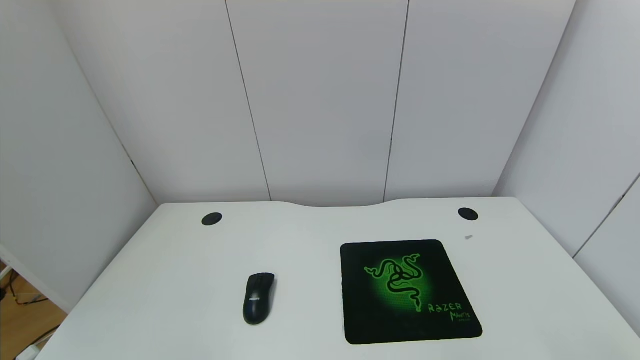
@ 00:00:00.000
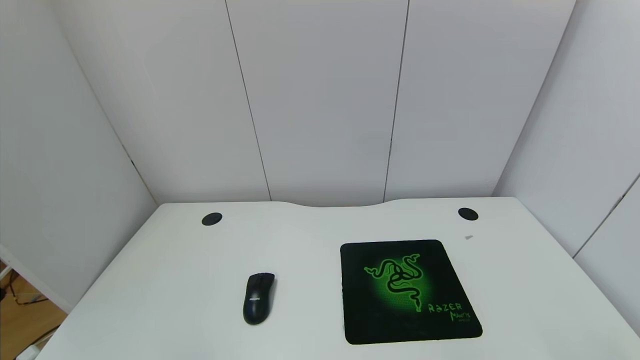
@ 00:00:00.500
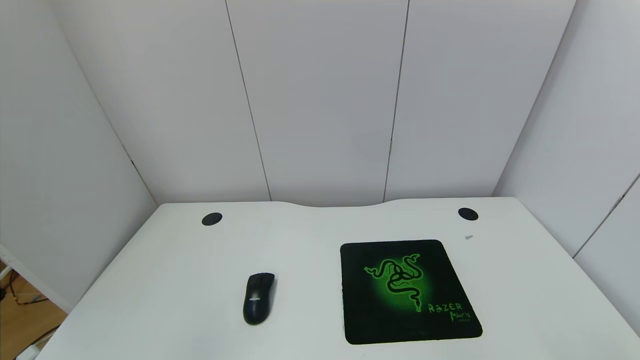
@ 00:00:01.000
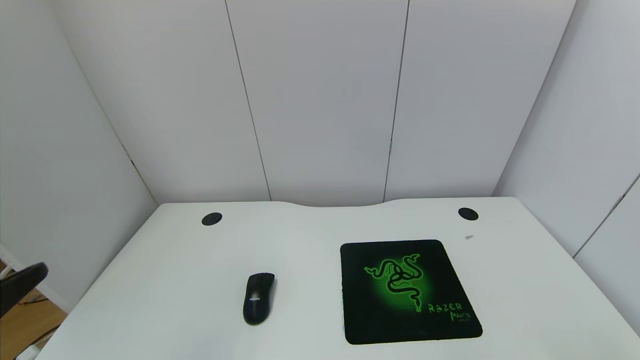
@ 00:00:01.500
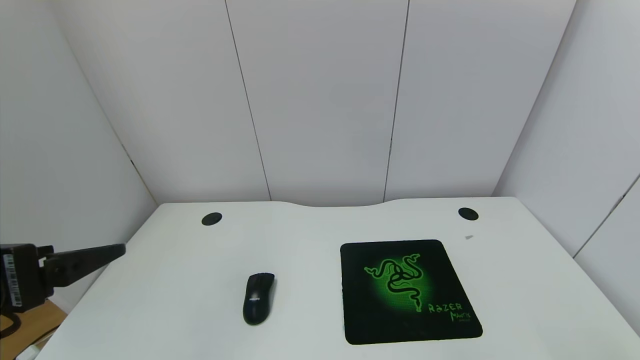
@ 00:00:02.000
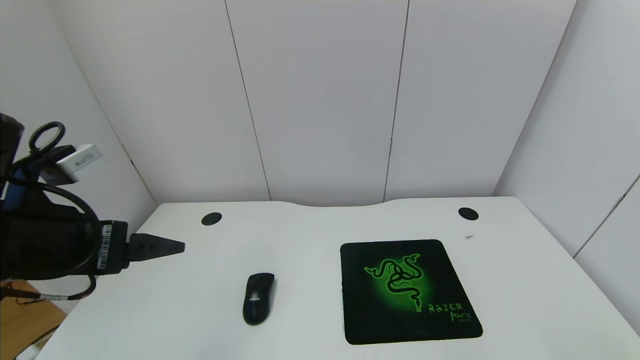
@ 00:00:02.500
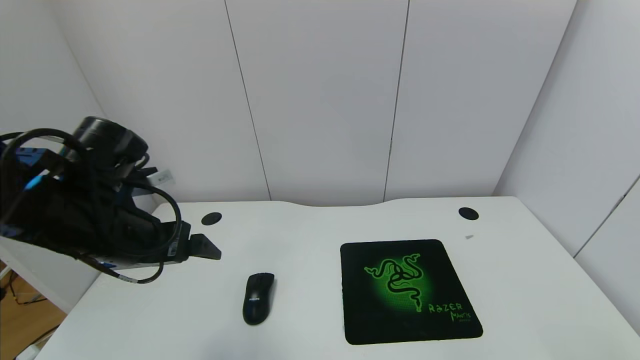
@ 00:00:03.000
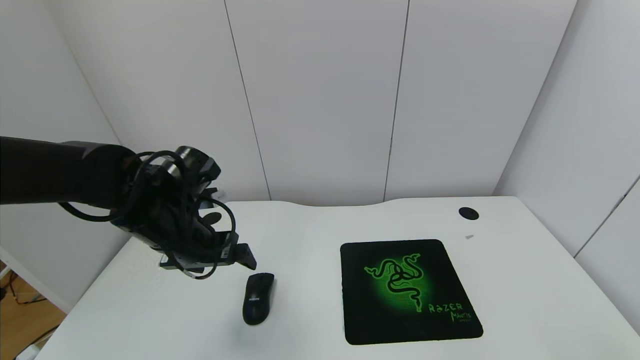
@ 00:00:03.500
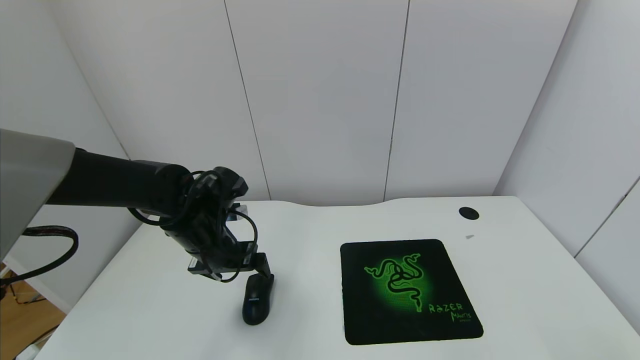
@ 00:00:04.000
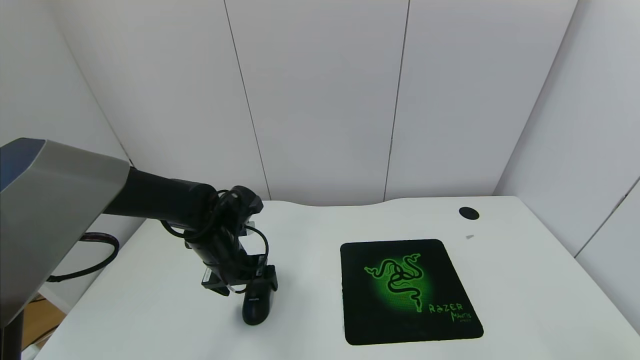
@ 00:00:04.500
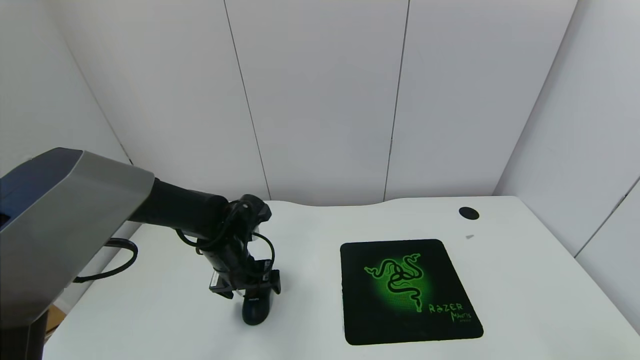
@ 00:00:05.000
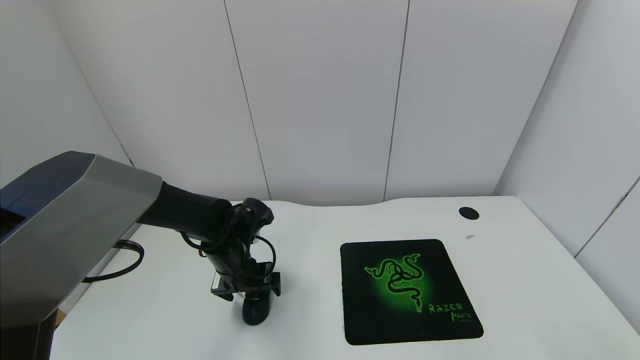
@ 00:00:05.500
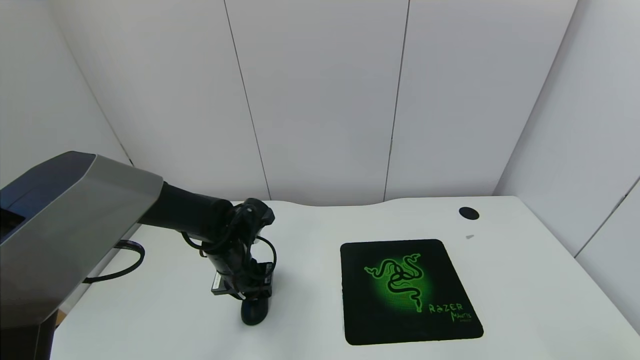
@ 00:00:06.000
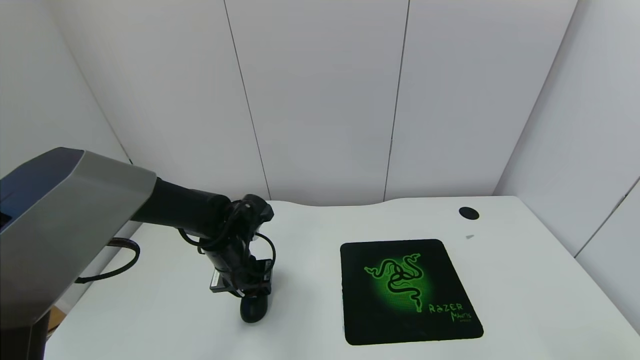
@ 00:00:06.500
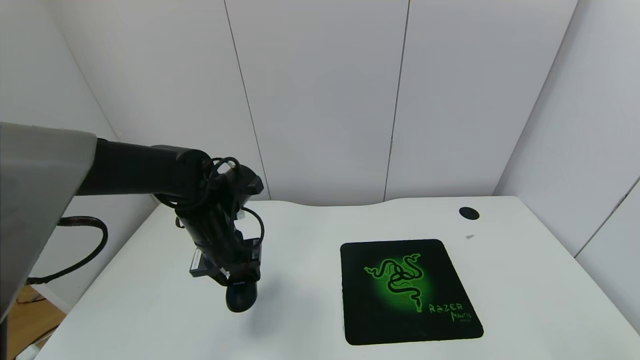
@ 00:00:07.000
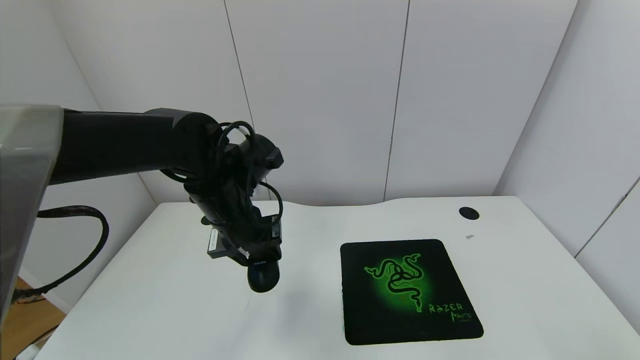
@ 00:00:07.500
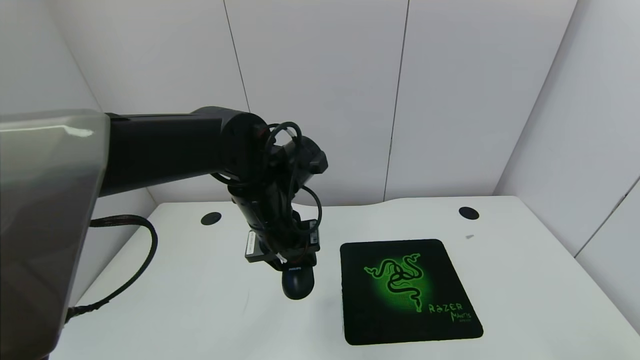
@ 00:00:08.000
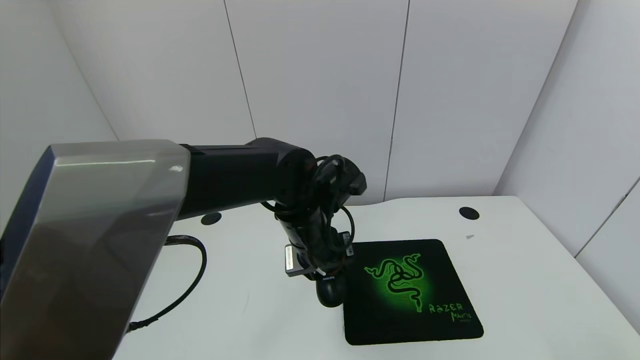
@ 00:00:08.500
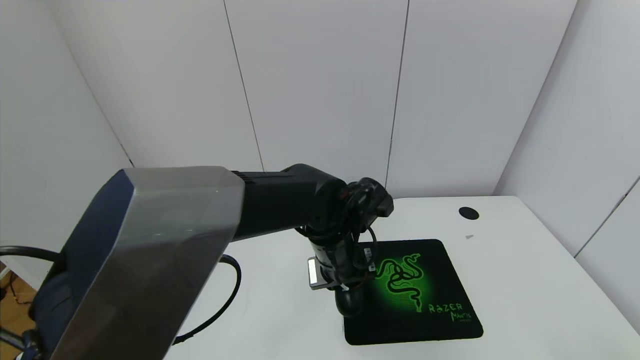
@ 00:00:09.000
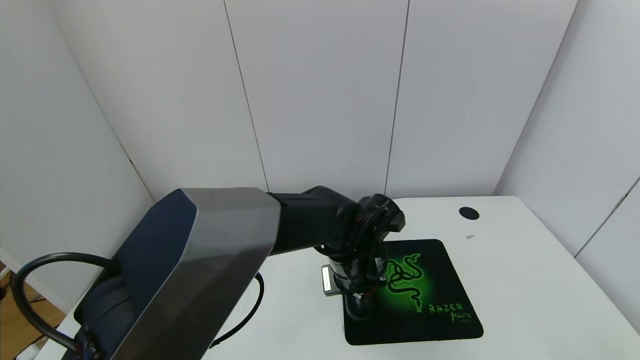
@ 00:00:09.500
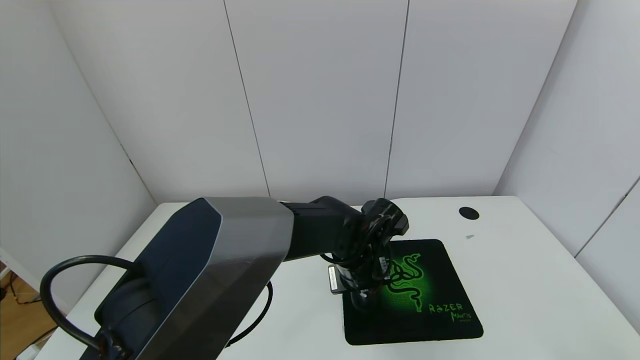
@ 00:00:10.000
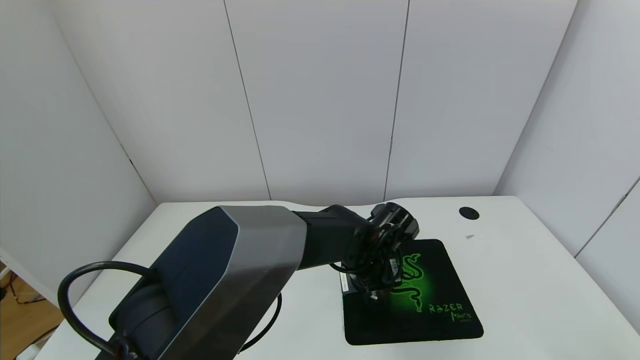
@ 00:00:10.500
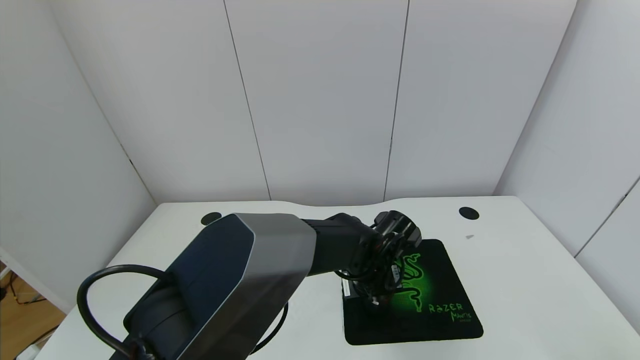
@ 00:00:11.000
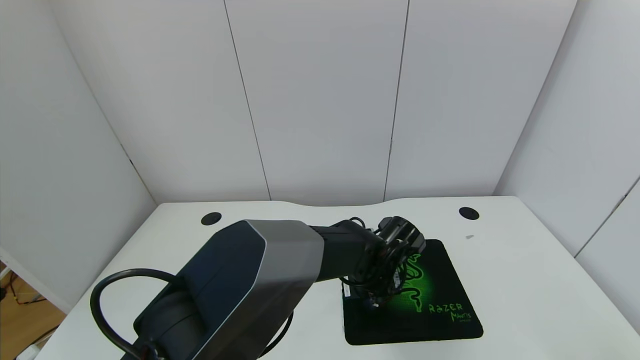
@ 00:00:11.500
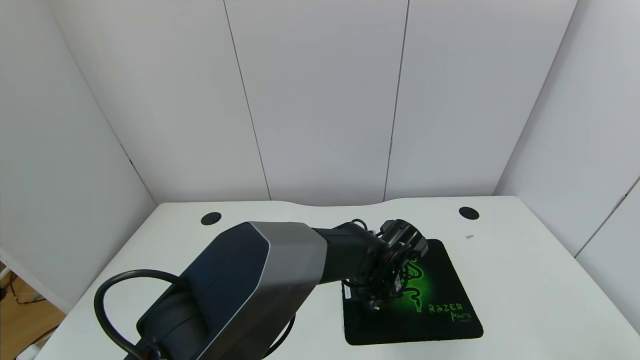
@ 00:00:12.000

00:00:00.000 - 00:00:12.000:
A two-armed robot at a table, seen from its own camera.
Task of the whole recording: use the gripper to move the mouse from one side of the table to the mouse pad on the opposite side.
Step, 00:00:00.000 - 00:00:06.000: Grasp the mouse with the left gripper.
00:00:00.000 - 00:00:02.000: The left gripper goes roughly 25 cm upward and forward.
00:00:02.000 - 00:00:04.000: The left gripper heads forward, downward and to the right, covering some 25 cm.
00:00:04.000 - 00:00:06.000: The left gripper goes approximately 5 cm downward, and closes up.
00:00:06.000 - 00:00:08.000: The left gripper heads upward and to the right, covering approximately 15 cm.
00:00:08.000 - 00:00:10.000: The left gripper moves to the right and downward, roughly 15 cm.
00:00:10.000 - 00:00:12.000: The grippers make only small movements.

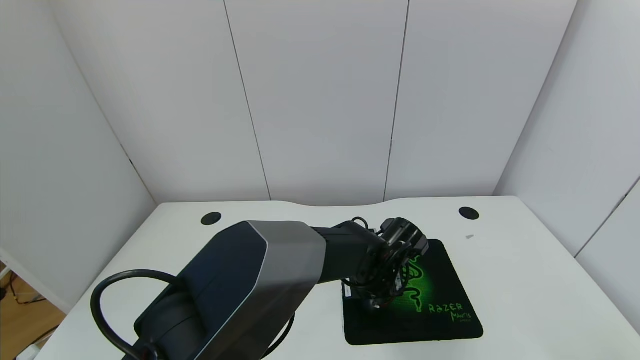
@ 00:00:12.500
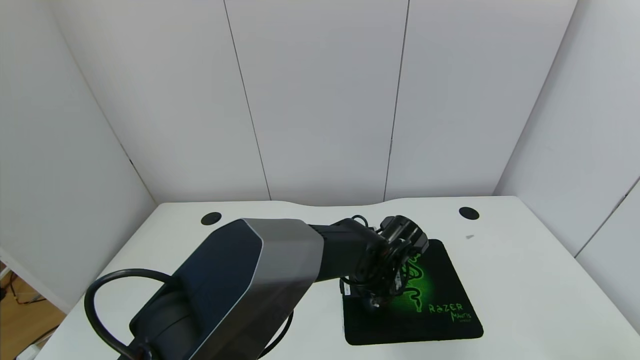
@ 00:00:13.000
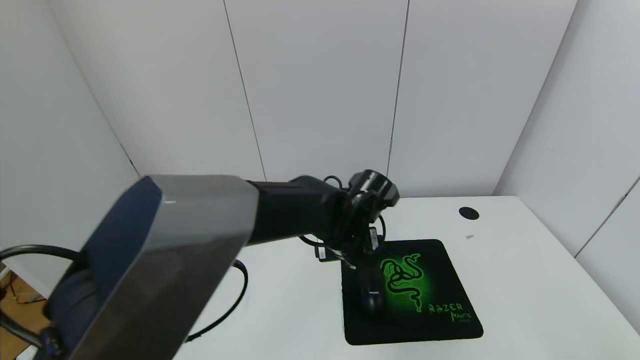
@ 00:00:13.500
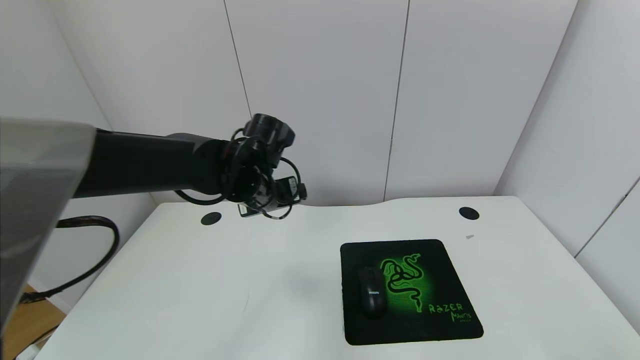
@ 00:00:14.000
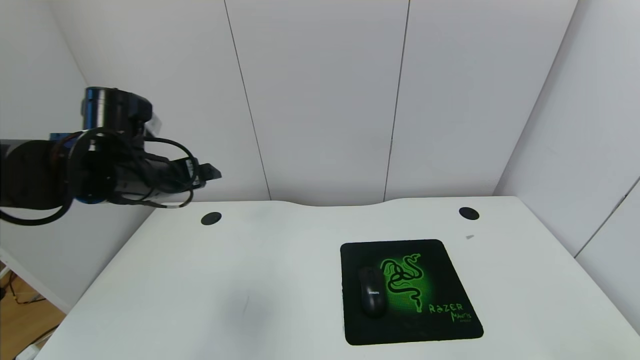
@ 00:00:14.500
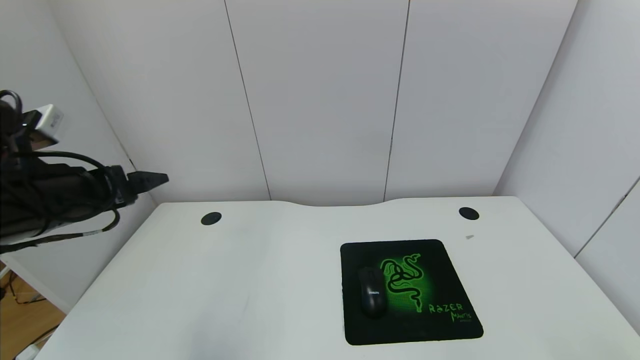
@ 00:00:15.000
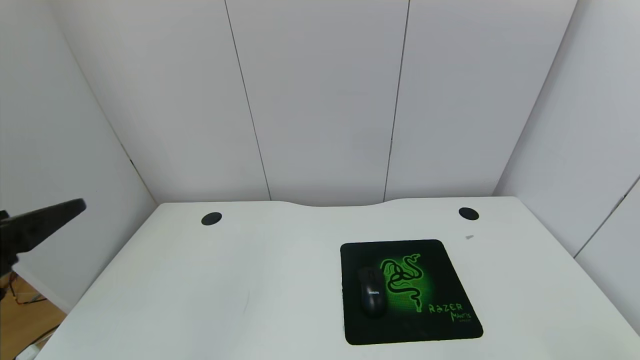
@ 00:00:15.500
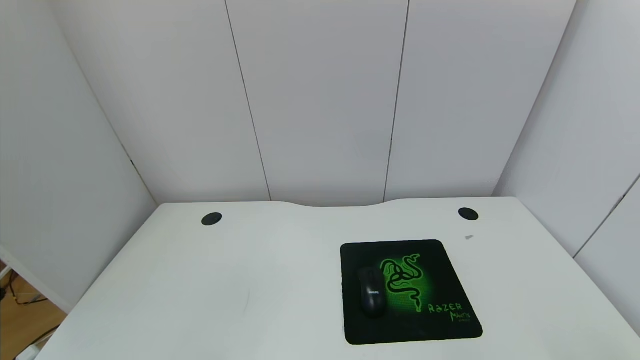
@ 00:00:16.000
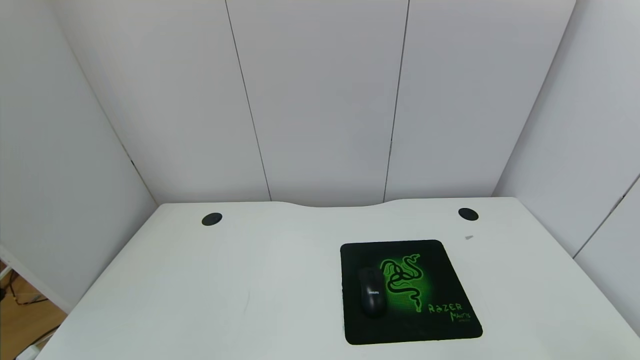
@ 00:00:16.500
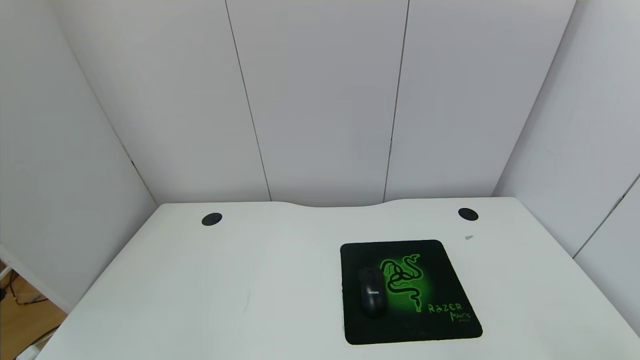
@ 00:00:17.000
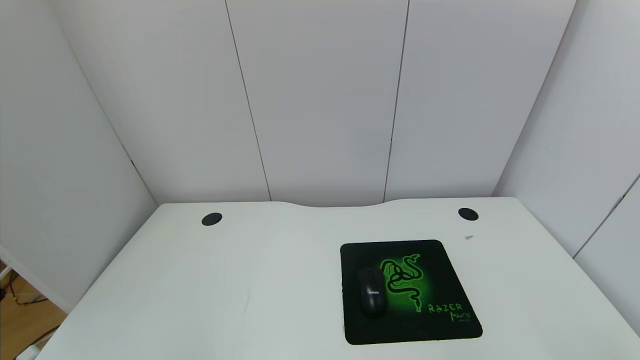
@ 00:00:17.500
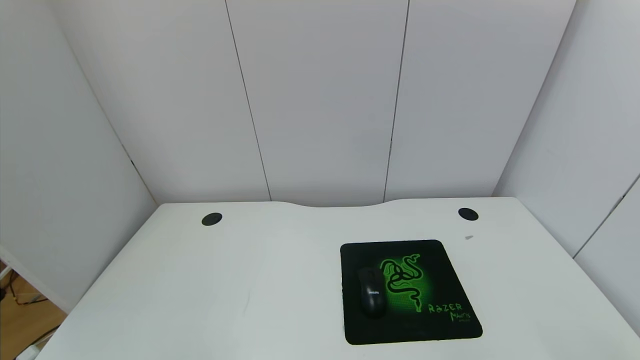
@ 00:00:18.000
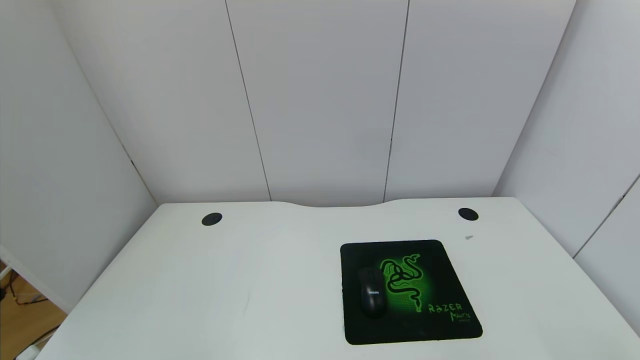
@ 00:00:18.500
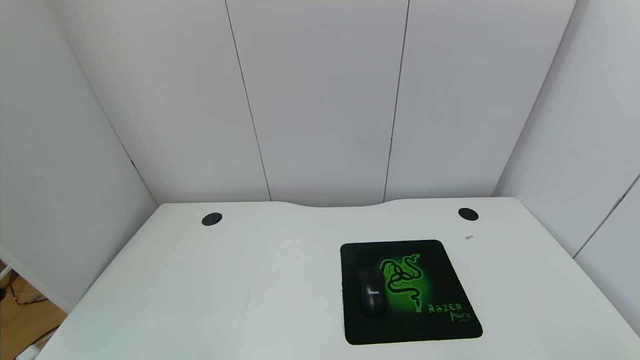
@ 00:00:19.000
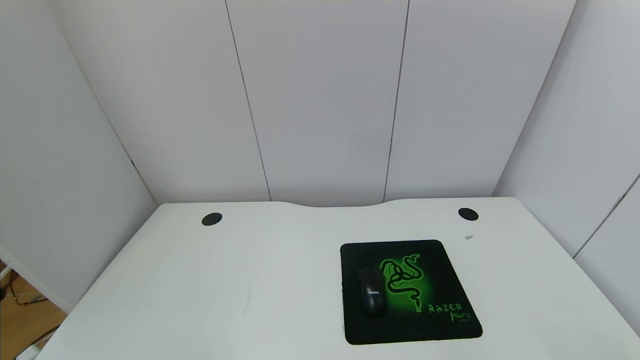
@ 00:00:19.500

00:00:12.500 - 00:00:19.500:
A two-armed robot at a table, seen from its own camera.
Task of the whole recording: use the gripper to move the mouse from one side of the table to the mouse pad on the opposite side.
00:00:12.500 - 00:00:14.500: The left gripper goes roughly 35 cm to the left and upward.
00:00:14.500 - 00:00:16.000: The left gripper goes approximately 30 cm backward.
